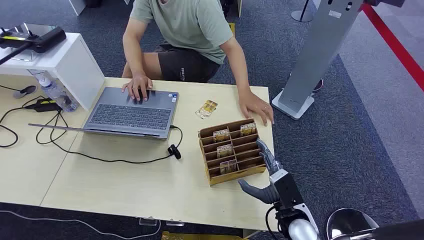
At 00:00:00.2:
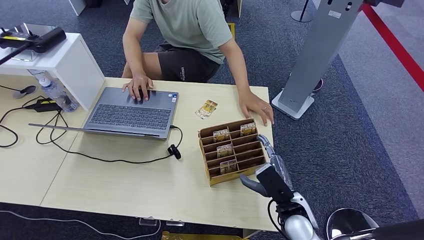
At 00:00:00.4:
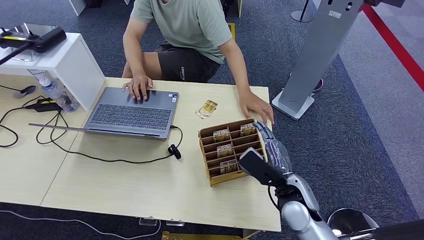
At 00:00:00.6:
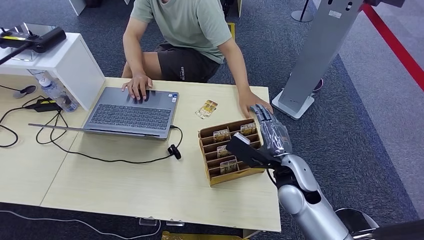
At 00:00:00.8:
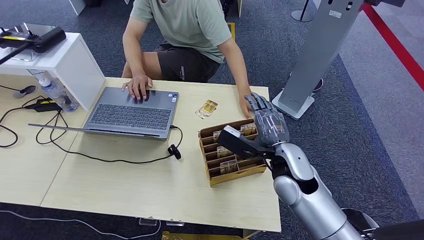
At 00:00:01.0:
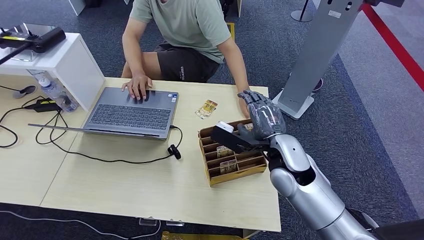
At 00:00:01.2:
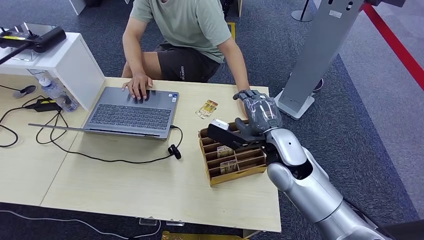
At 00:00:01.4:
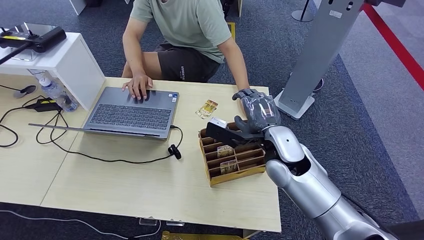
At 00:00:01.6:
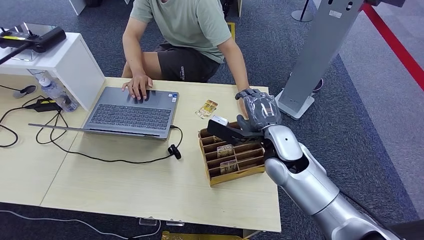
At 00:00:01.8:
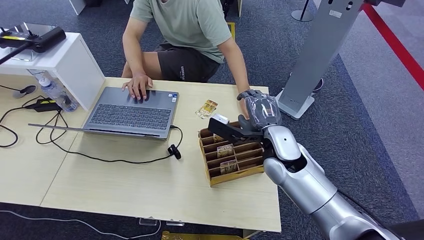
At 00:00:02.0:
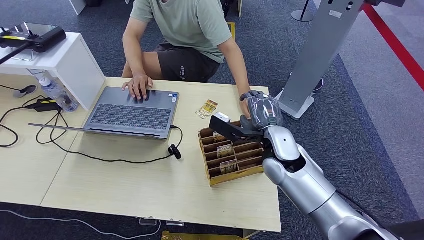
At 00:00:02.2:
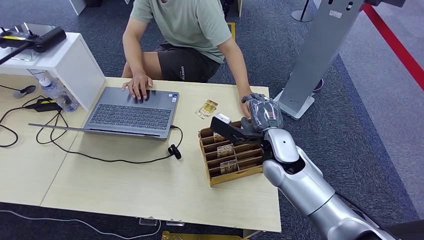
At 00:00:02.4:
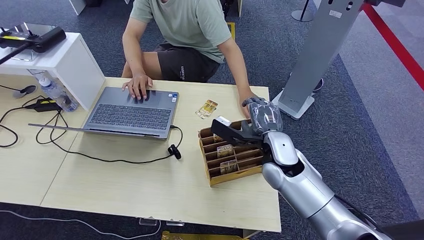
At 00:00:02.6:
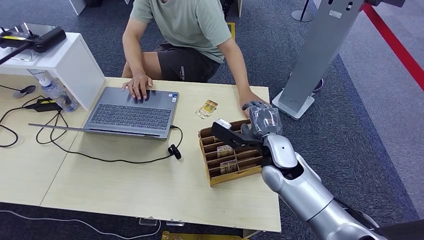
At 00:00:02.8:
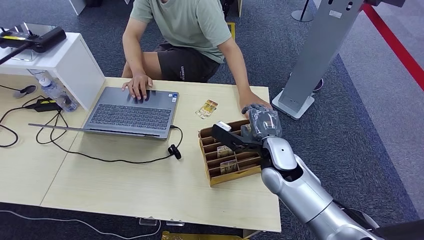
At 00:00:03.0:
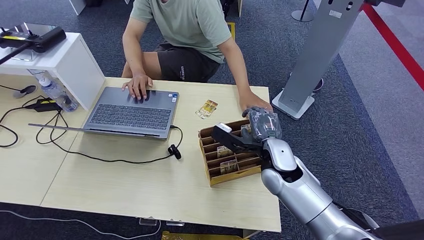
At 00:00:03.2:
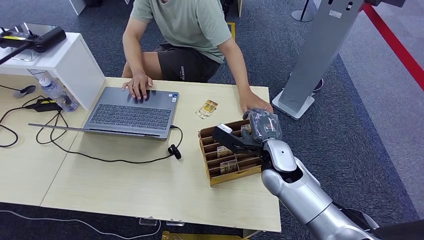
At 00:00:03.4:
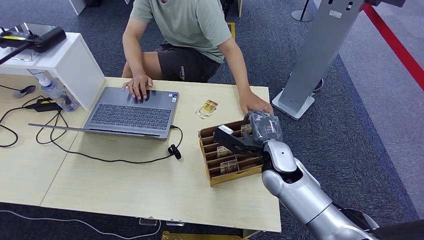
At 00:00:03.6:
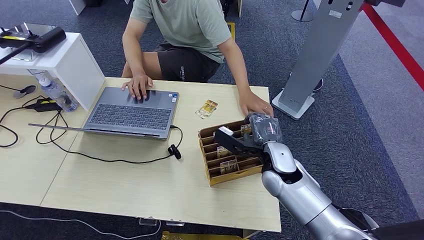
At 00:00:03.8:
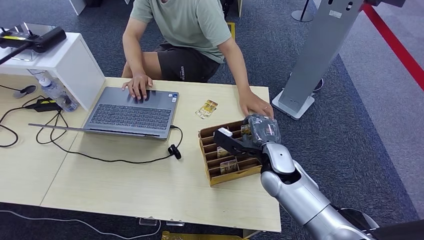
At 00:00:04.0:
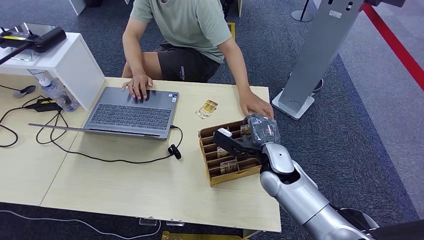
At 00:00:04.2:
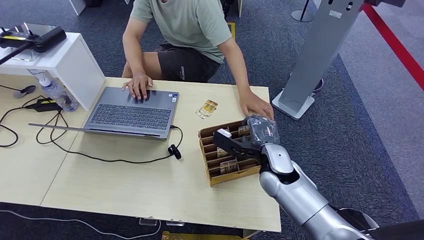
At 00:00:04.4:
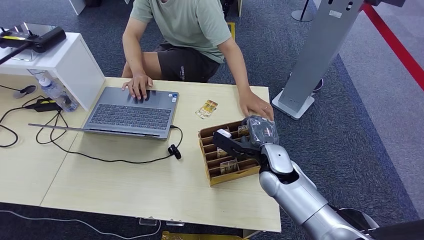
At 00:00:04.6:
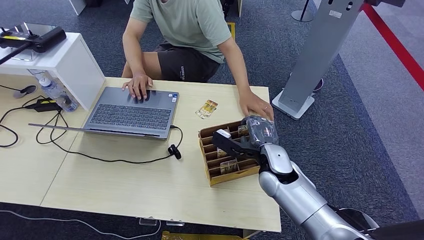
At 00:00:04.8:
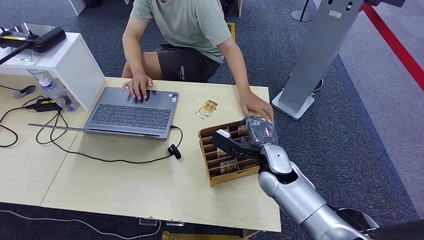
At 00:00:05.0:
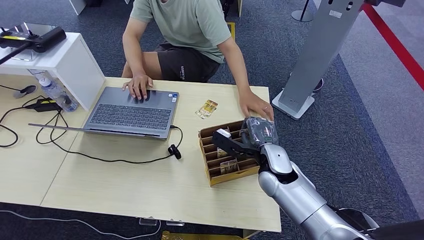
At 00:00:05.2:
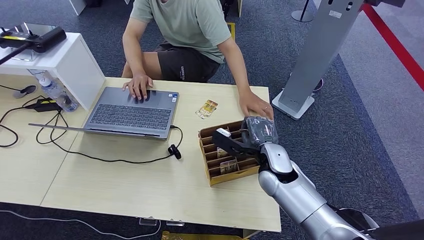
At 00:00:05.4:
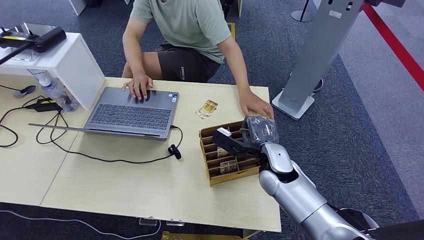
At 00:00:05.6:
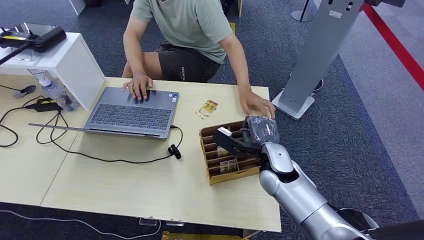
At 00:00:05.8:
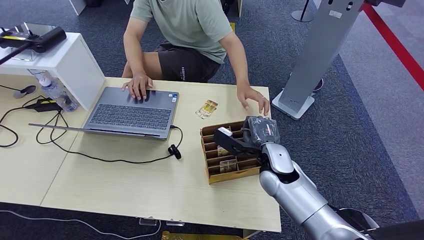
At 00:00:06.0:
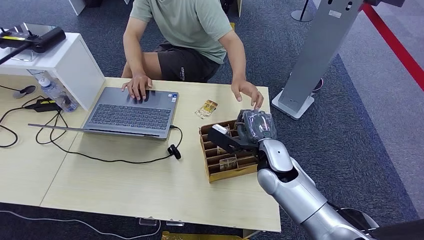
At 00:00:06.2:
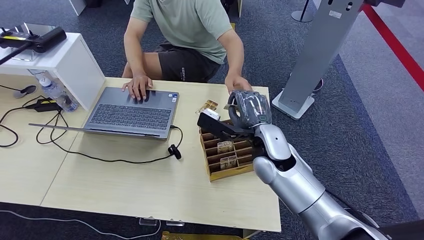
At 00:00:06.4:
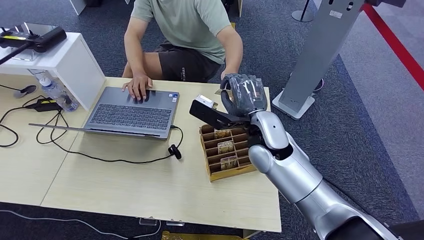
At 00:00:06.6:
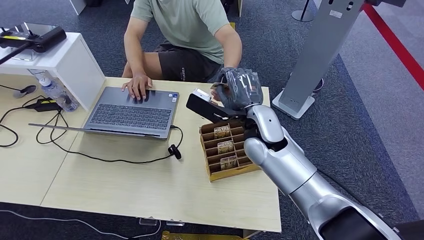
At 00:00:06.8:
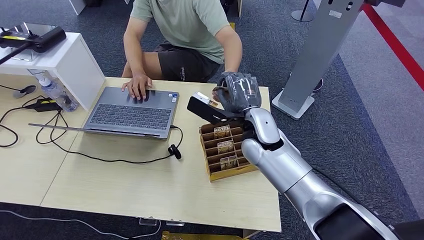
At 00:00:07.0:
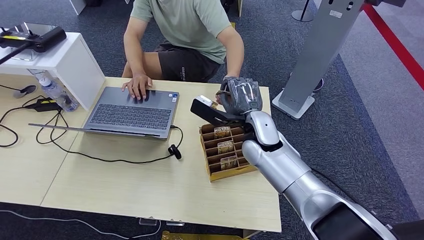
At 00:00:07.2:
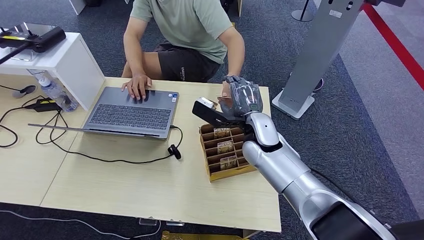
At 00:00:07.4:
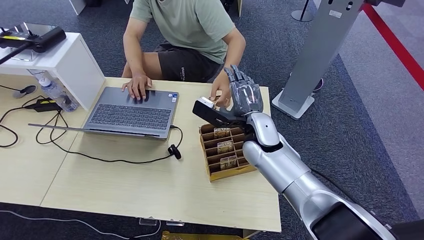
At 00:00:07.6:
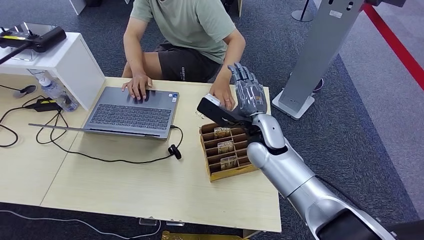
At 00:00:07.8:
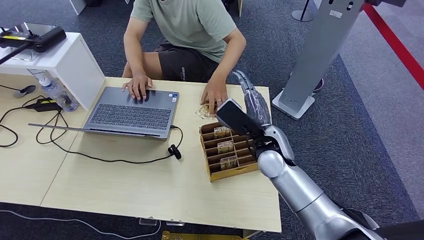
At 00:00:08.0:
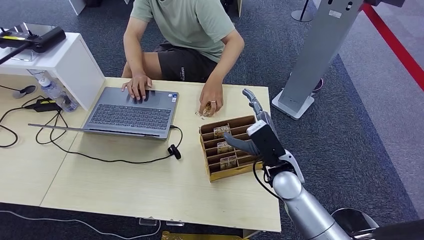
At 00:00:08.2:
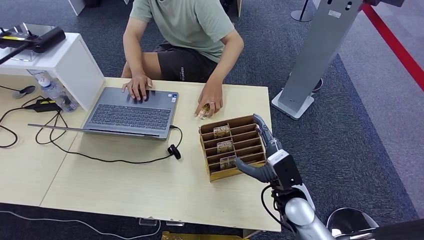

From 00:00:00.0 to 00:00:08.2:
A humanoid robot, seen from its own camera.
Step, from 00:00:00.0 to 00:00:06.6: Pick up the key card from the card box.
Step, from 00:00:06.8 to 00:00:08.2: Hand the key card to the target.
From 00:00:01.6 to 00:00:03.2: The hands stay close to where they were, moving slightly.
From 00:00:03.2 to 00:00:05.0: The hands make only small movements.
From 00:00:05.0 to 00:00:06.6: The right hand travels upward by roughly 10 cm.
From 00:00:06.6 to 00:00:08.2: The right hand moves downward, to the right and backward, about 20 cm.
